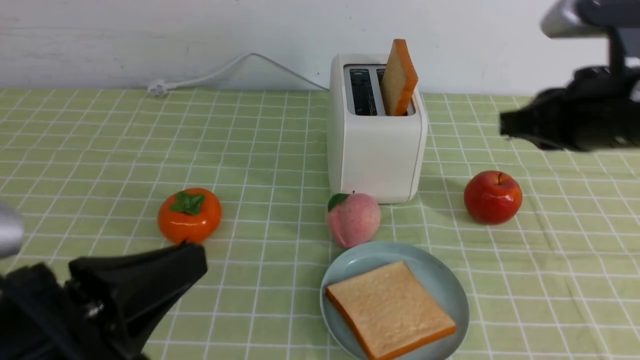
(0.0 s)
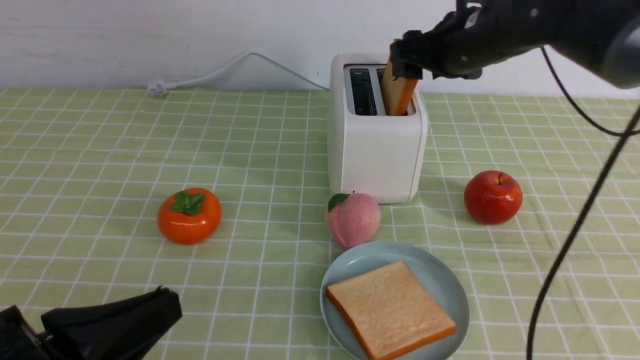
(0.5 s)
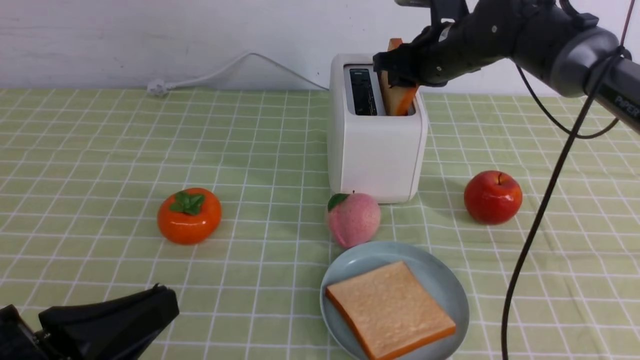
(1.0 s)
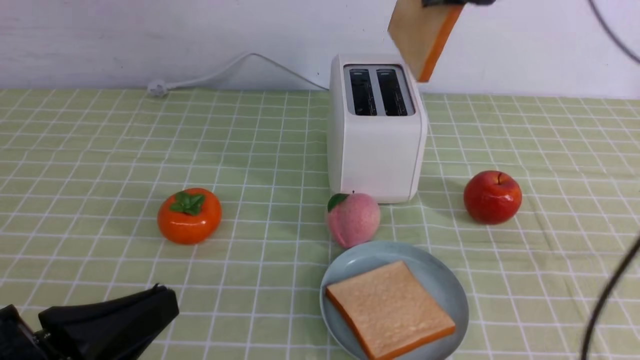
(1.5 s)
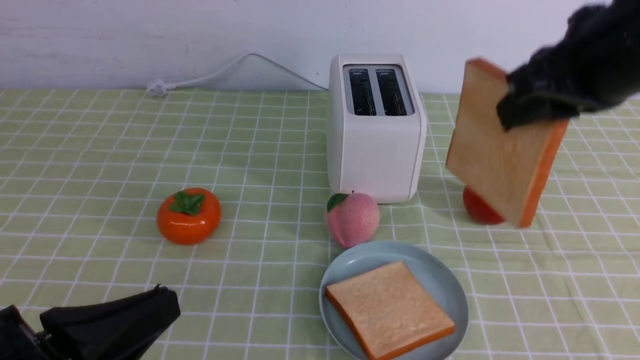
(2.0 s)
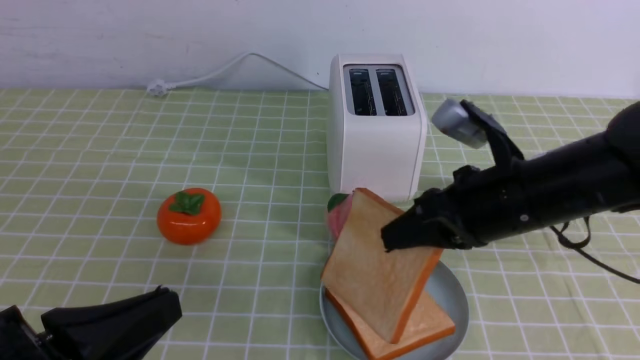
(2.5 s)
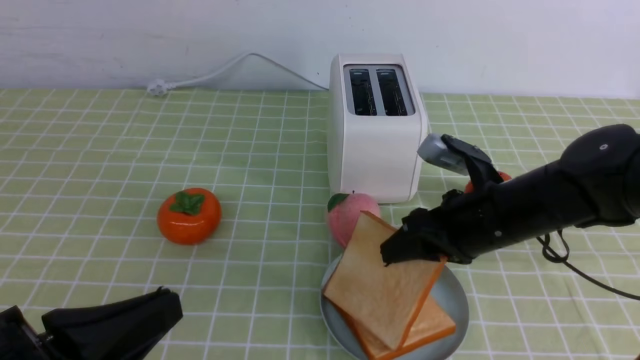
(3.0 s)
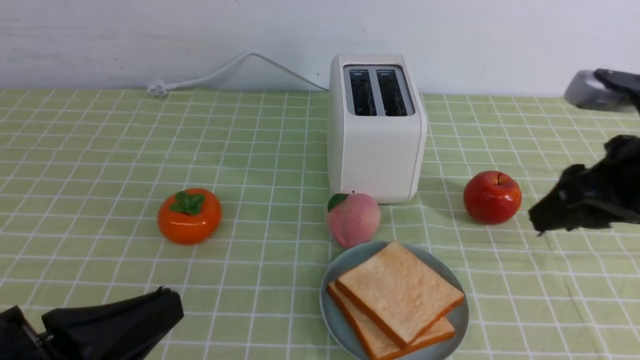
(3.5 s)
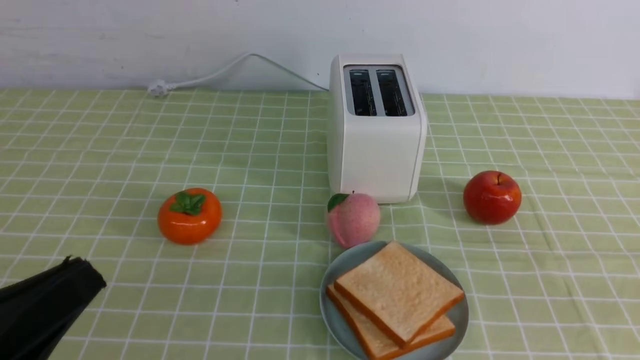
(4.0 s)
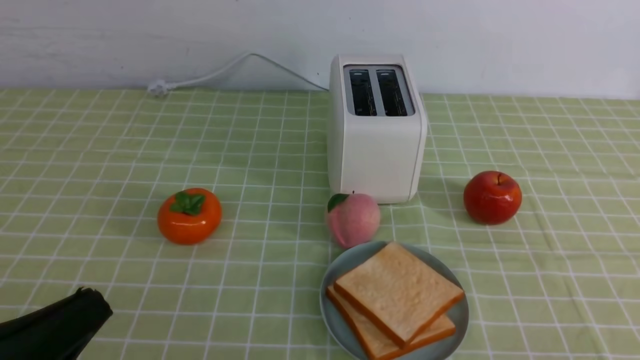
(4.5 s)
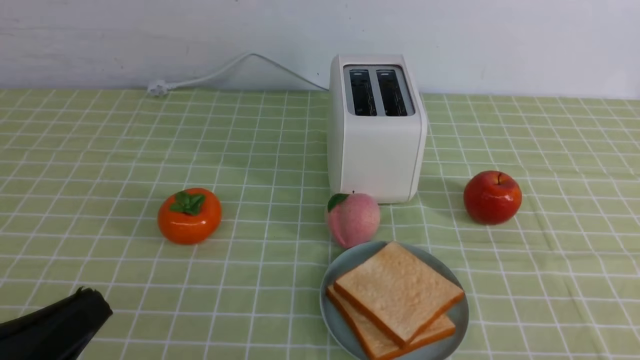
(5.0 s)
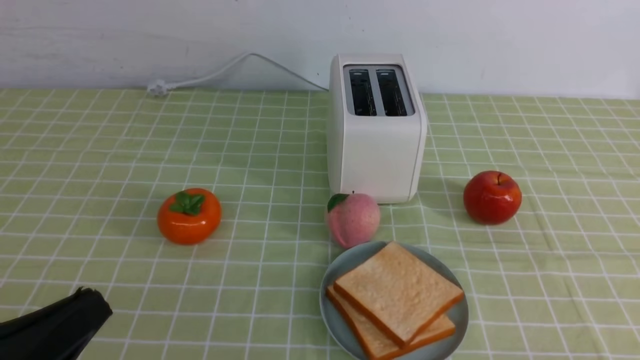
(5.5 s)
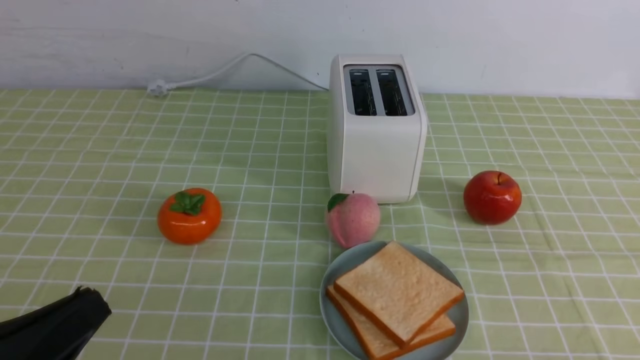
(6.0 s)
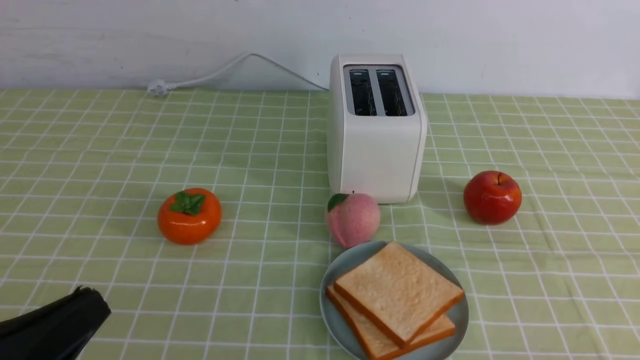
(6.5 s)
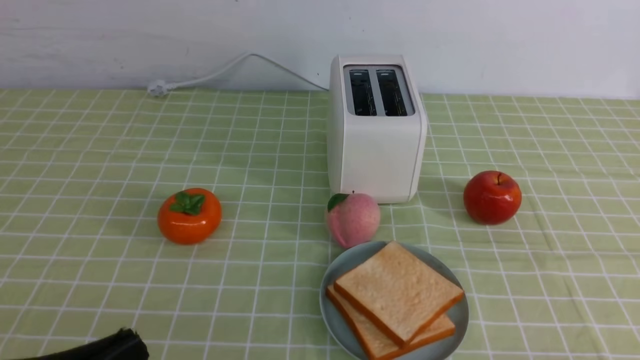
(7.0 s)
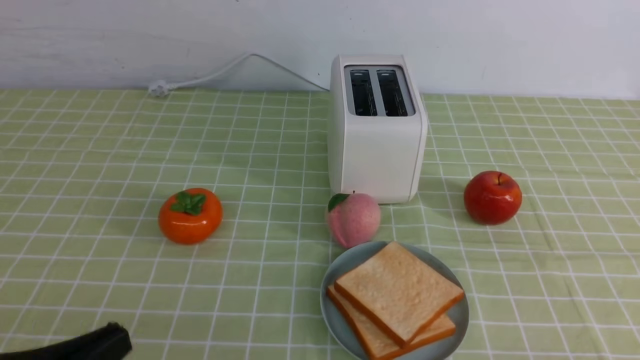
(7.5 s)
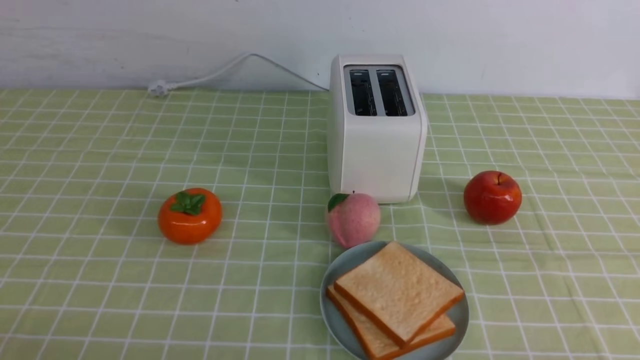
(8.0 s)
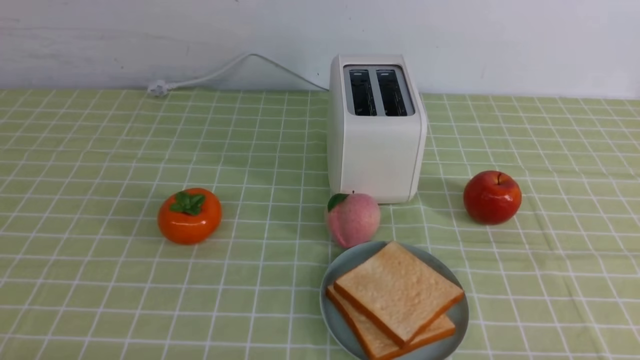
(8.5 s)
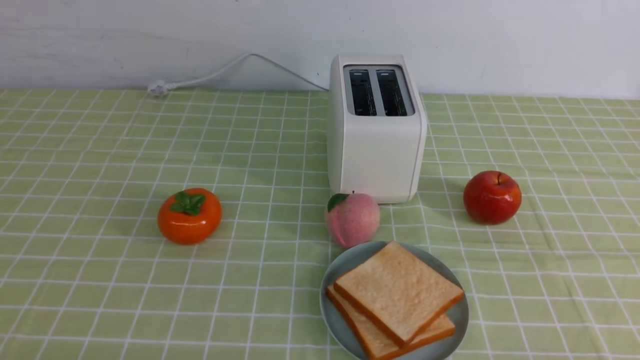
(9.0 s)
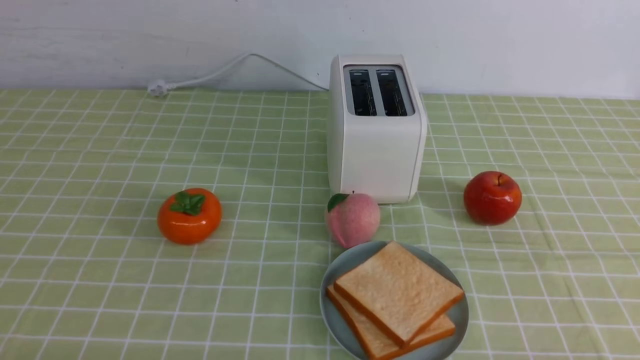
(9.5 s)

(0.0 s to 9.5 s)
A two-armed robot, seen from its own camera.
Task of the whole recording: take toasted bread from bread machine on green coffee tablecloth place on plate.
Step, 0.0 s - 1.5 s: use the right arm to take out a slice of bread.
Step, 2.0 s - 3.0 s: use the right arm to put a slice of bread into the plate.
0.0 s - 2.0 s: The right gripper moves roughly 20 cm forward and comes back, and opens, then closes again.
2.0 s - 4.0 s: The right gripper travels backward and to the right by approximately 25 cm, and opens and closes again.
5.5 s - 7.5 s: The grippers move only a little.
7.5 s - 9.5 s: The left gripper is displaced downward by roughly 10 cm.
